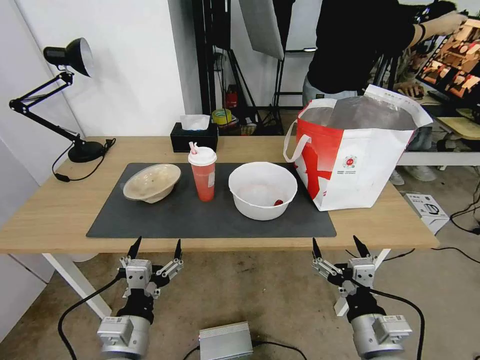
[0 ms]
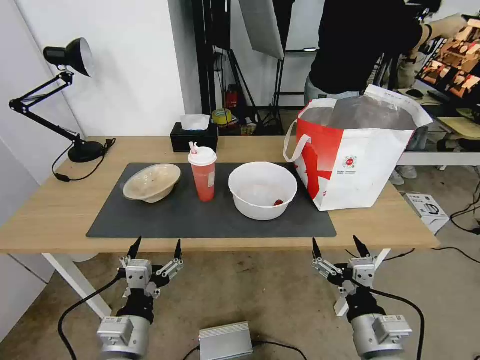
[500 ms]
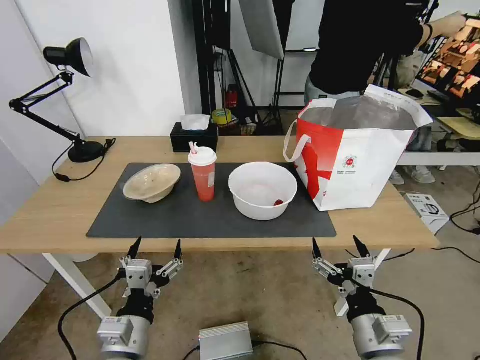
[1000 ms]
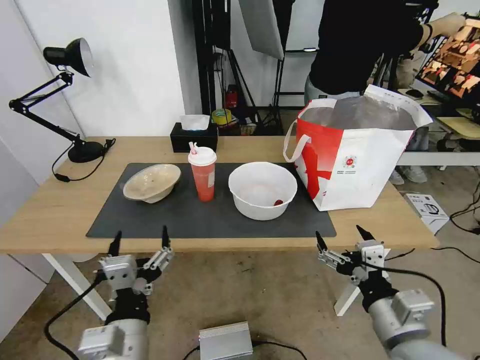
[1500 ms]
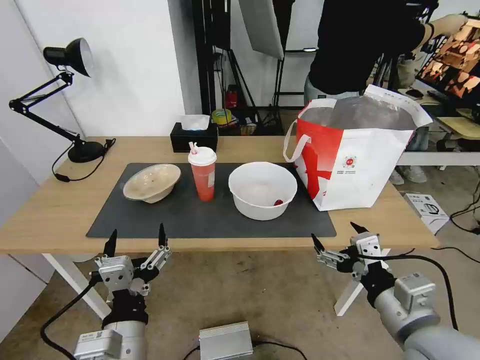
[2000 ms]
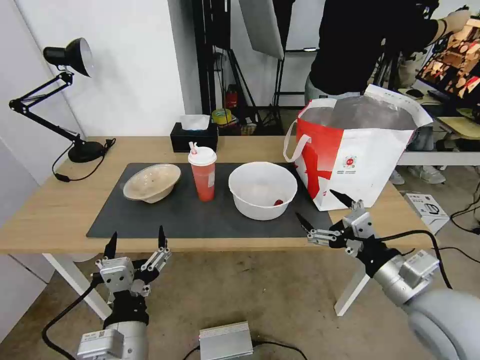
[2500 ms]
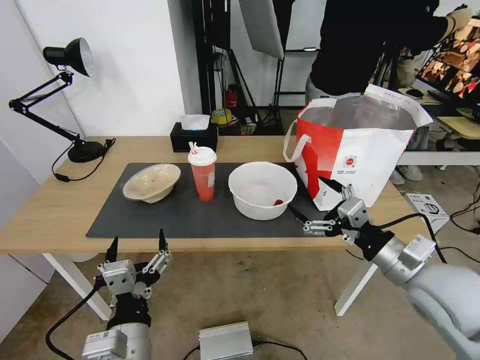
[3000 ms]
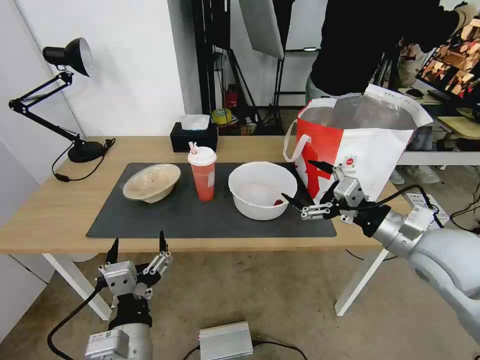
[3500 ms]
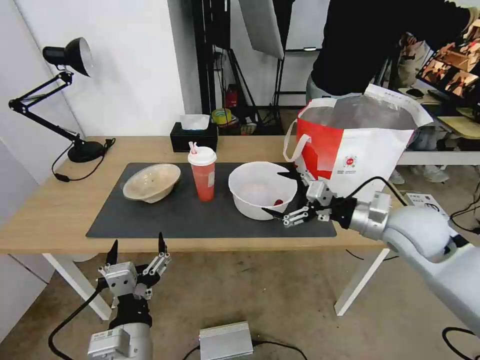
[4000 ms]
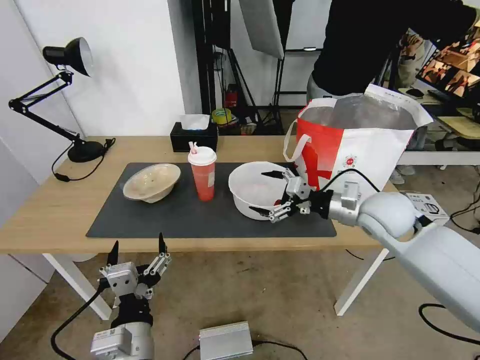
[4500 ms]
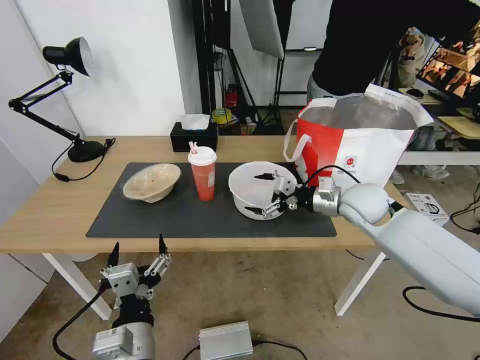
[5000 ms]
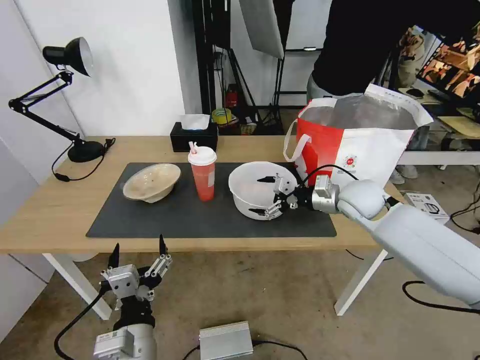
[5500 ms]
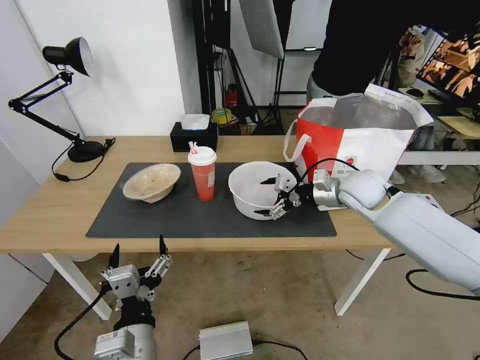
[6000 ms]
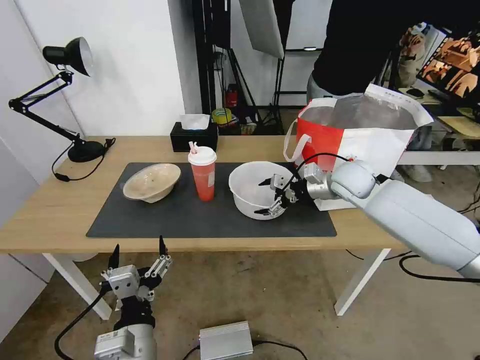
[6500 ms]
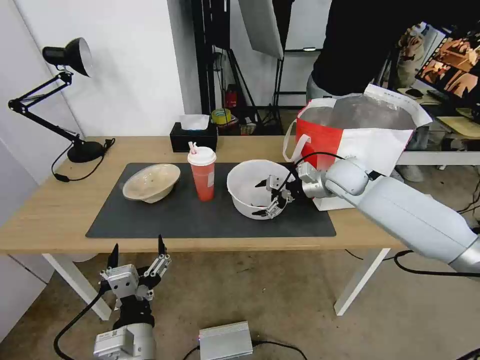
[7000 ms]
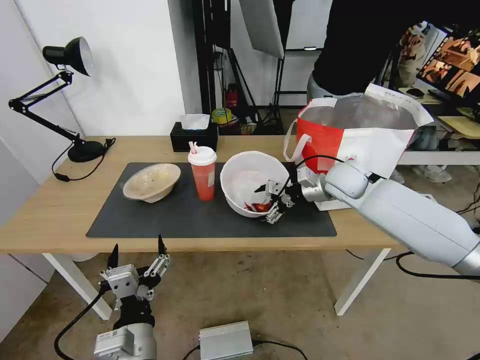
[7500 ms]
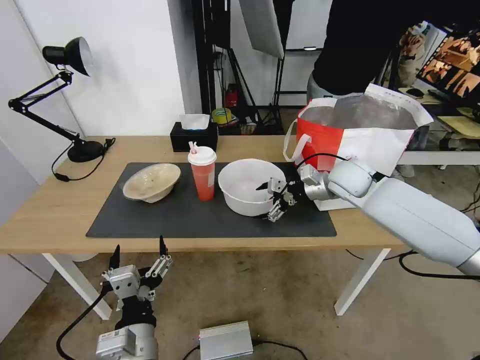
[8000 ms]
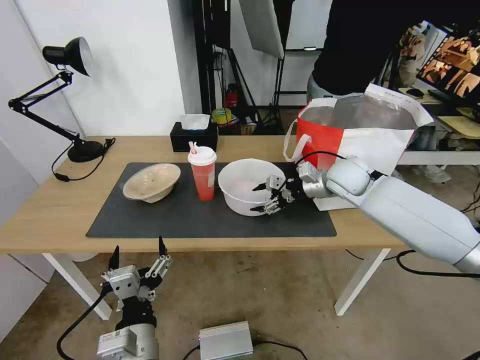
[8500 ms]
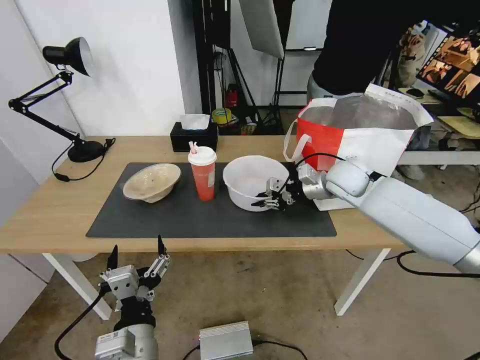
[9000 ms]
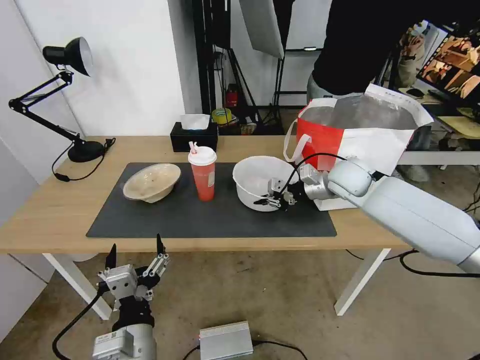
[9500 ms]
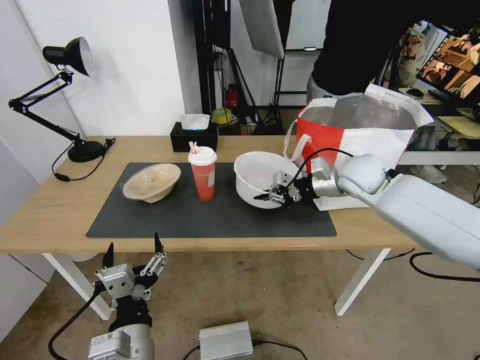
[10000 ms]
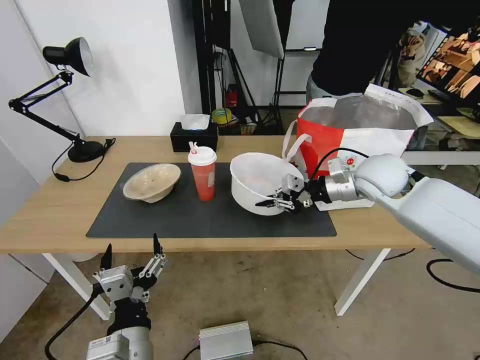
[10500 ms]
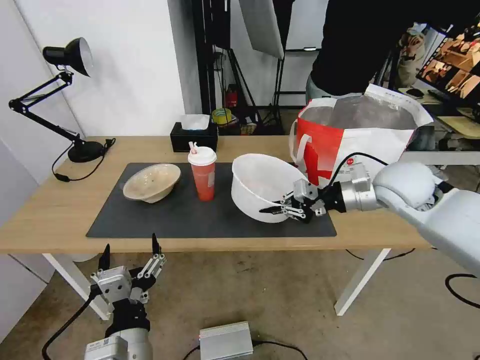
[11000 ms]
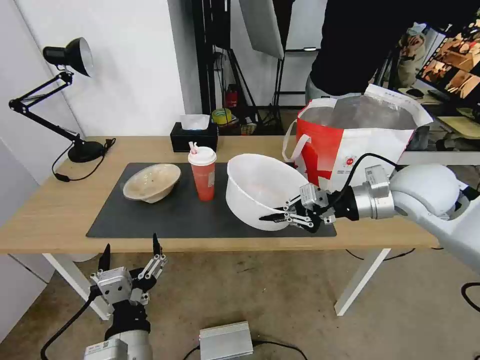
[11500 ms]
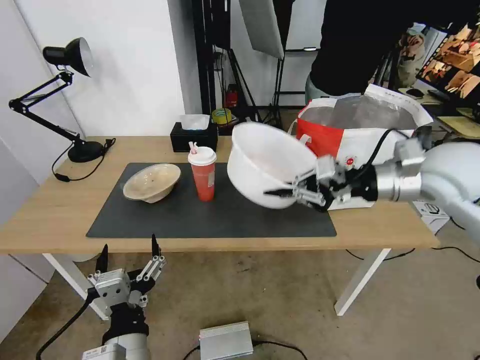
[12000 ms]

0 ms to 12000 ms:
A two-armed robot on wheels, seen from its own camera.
Task of the whole recording: Pick up the trash from the table and place it into the takeout bag.
2000 ms to 4000 ms: The right gripper shifts approximately 20 cm forward.
4000 ms to 6000 ms: The right gripper is displaced forward by roughly 15 cm.
6000 ms to 8000 ms: The grippers move only a little.
8000 ms to 10000 ms: The right gripper closes its fingers.
10000 ms to 12000 ms: The right gripper heads backward and upward, covering about 15 cm.

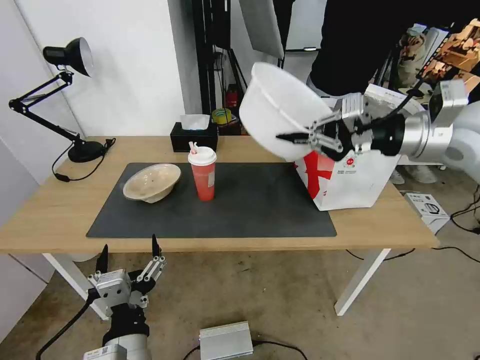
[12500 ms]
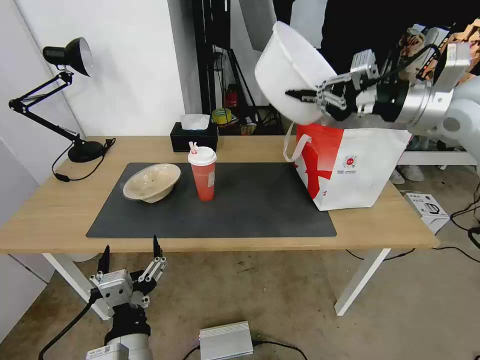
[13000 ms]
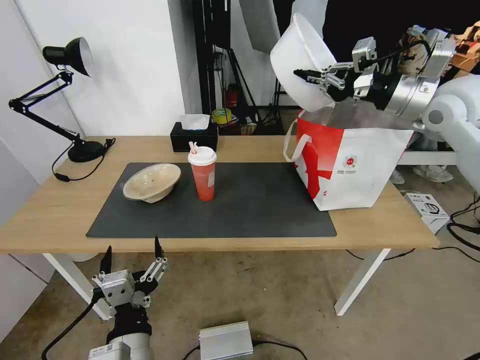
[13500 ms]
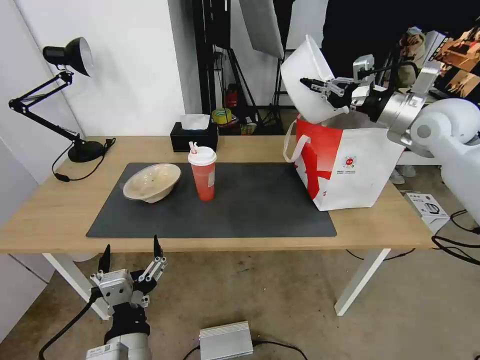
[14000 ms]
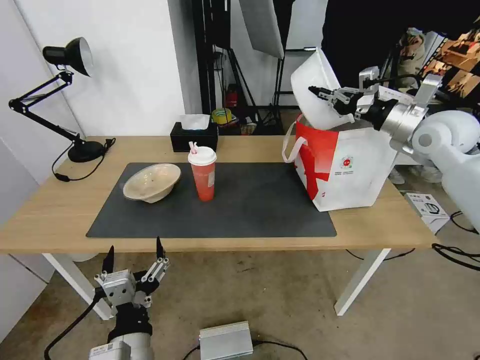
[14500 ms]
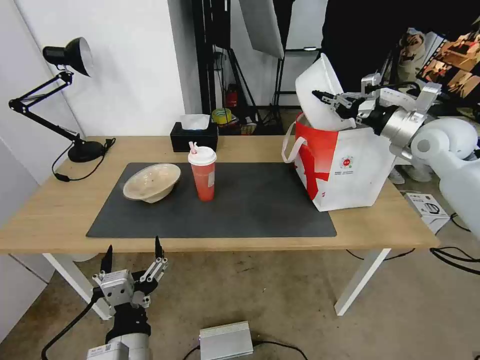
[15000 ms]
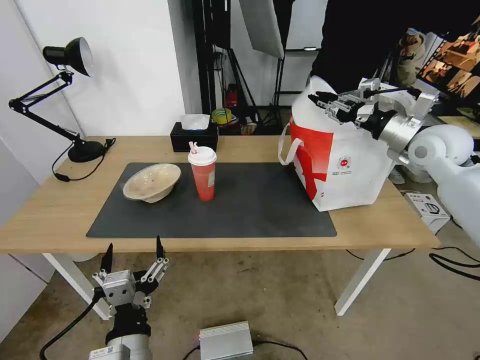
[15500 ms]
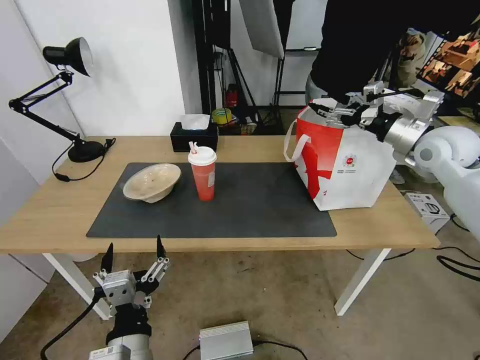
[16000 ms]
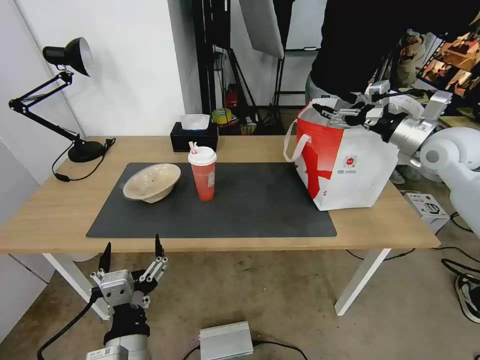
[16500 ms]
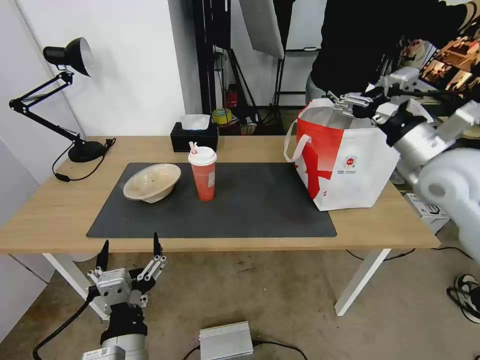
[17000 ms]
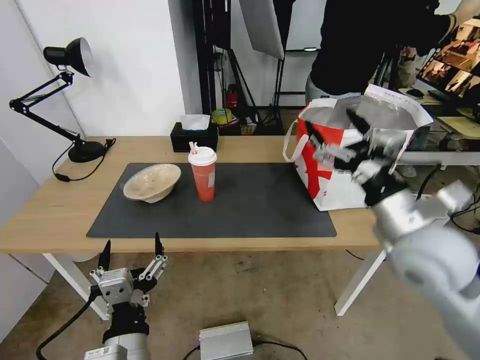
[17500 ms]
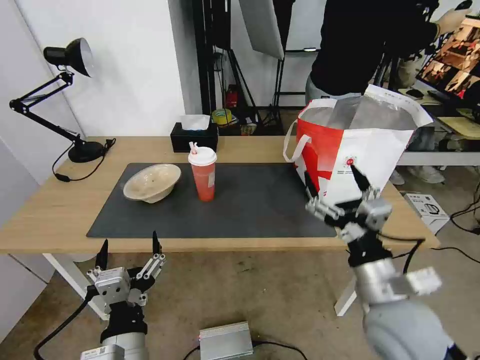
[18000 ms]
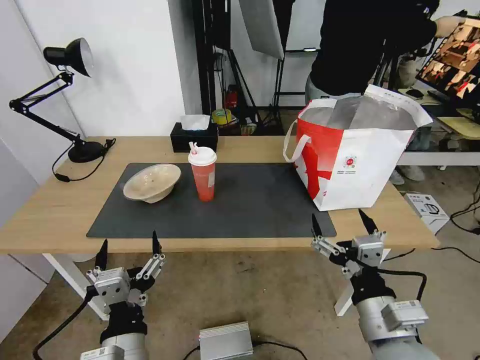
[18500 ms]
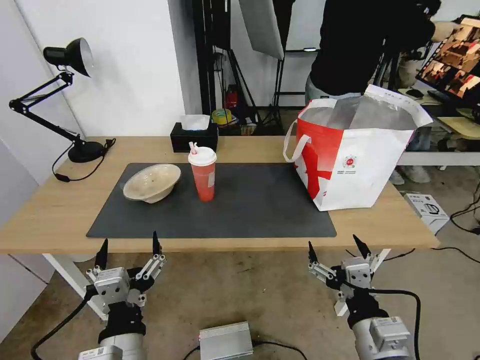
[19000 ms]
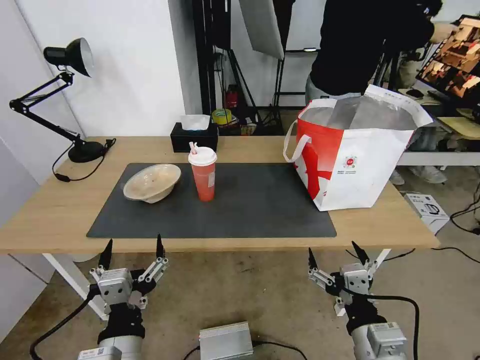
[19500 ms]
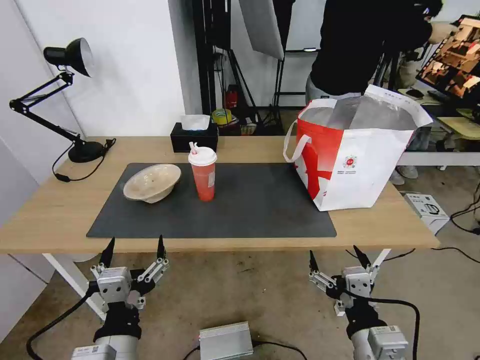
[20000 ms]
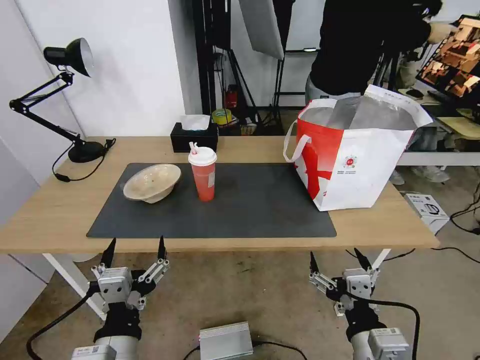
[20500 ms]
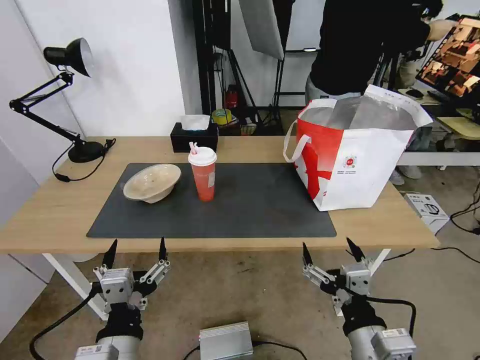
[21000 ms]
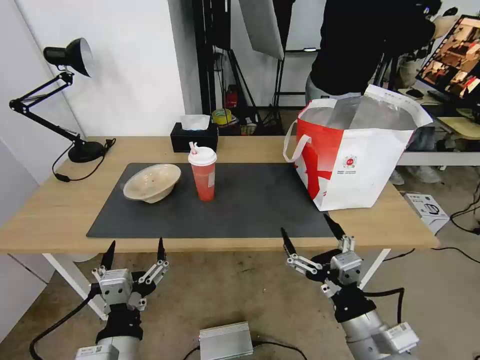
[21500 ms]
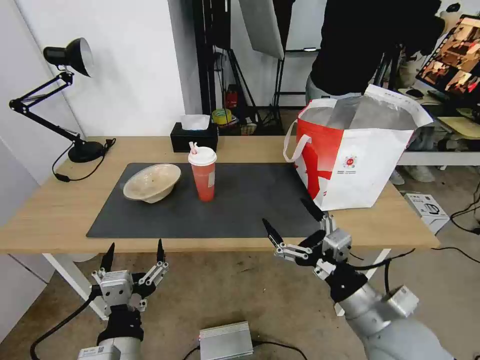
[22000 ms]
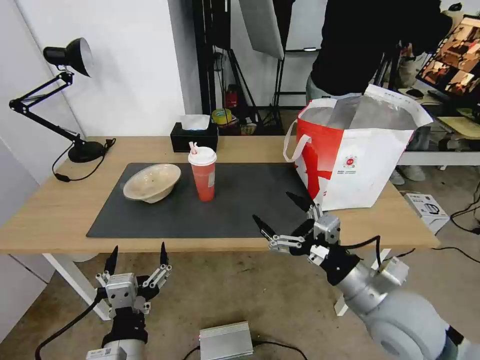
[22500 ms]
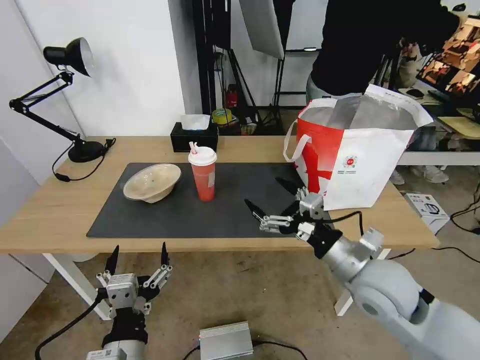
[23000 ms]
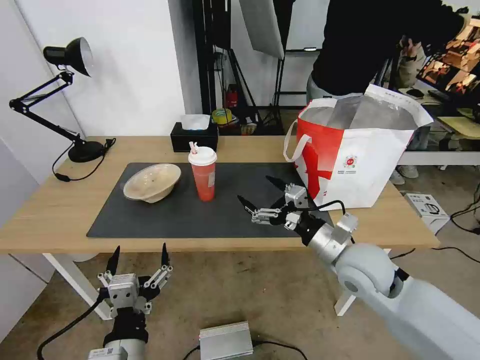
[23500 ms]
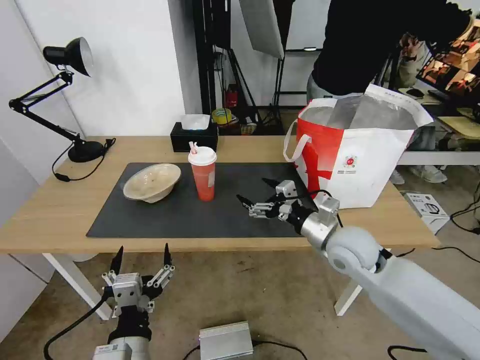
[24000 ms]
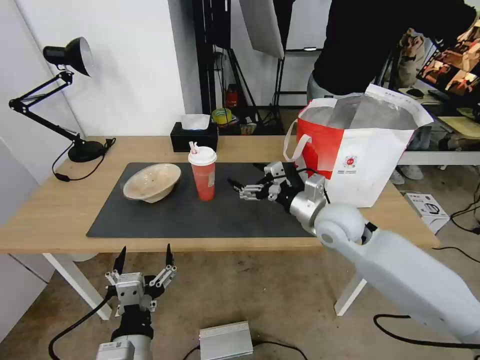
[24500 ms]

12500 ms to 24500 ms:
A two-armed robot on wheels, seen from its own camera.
Task of the whole recording: Pick up the trash from the table and place it into the takeout bag.
12500 ms to 14500 ms: The right gripper goes approximately 10 cm forward, downward and to the right.
14500 ms to 16500 ms: The right gripper opens up.
16500 ms to 18500 ms: The right gripper moves backward, to the left and downward, roughly 40 cm.
18500 ms to 20500 ms: The right gripper shifts by roughly 5 cm.
20500 ms to 22500 ms: The right gripper goes roughly 10 cm forward.
22500 ms to 24500 ms: The right gripper goes about 20 cm forward.

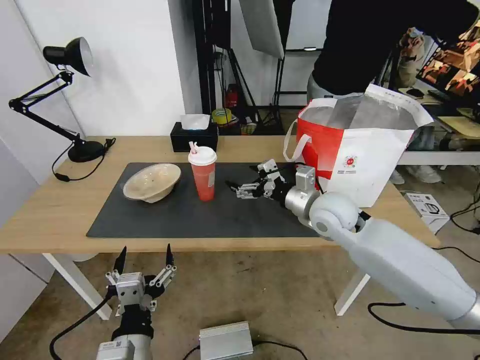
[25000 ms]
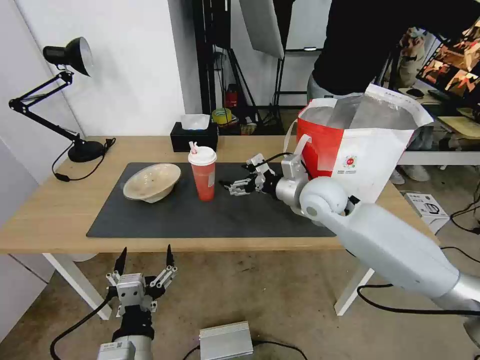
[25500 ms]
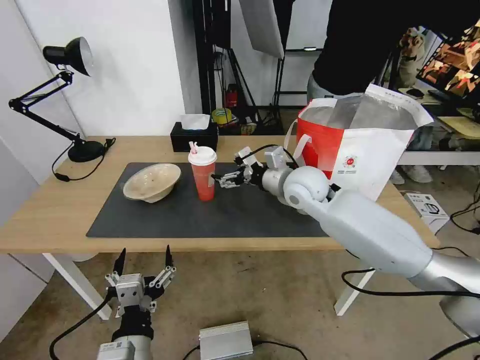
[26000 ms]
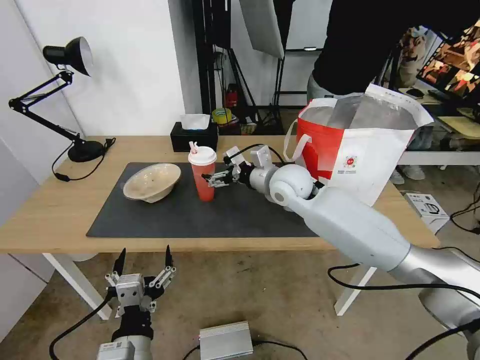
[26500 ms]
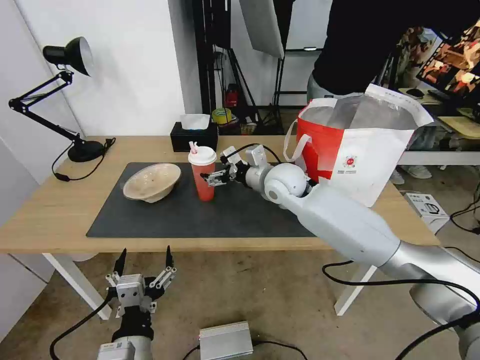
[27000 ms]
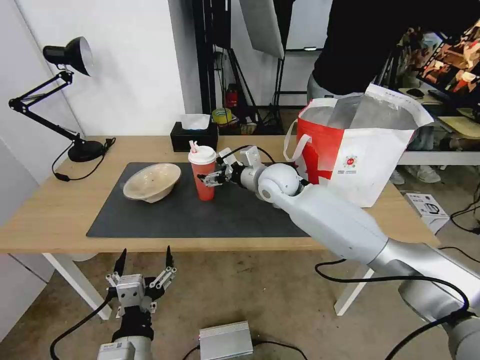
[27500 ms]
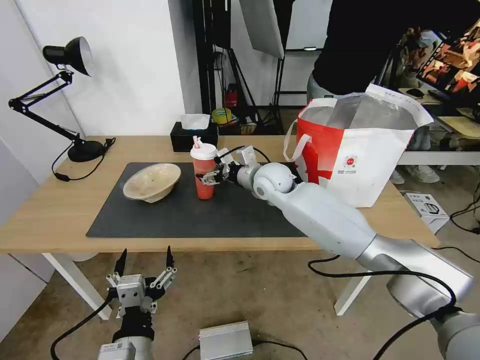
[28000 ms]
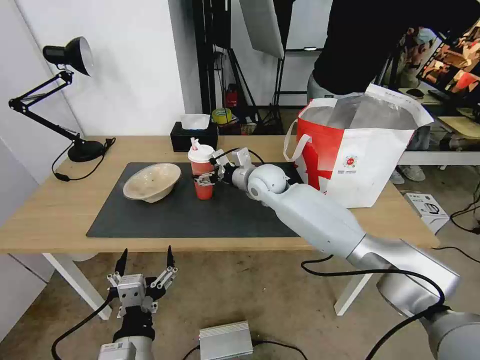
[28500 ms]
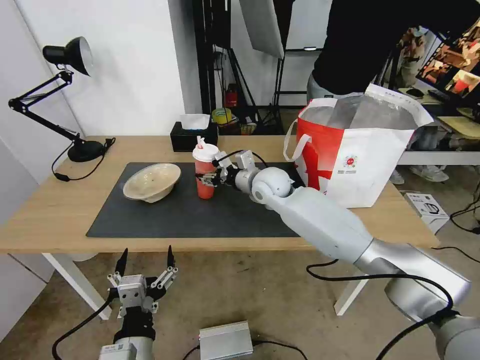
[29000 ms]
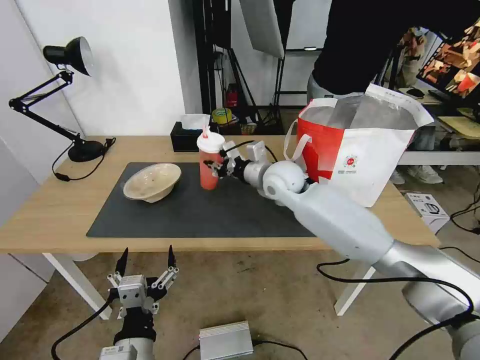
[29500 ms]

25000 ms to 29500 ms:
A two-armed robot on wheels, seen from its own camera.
Task of the whole recording: Pick up the trash from the table and place it into the takeout bag.
25000 ms to 27000 ms: The right gripper goes about 10 cm to the left and forward.
27000 ms to 29500 ms: The right gripper closes its fingers.
